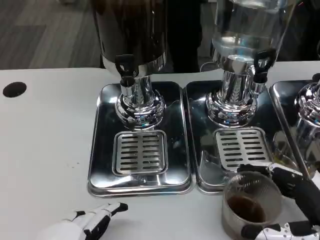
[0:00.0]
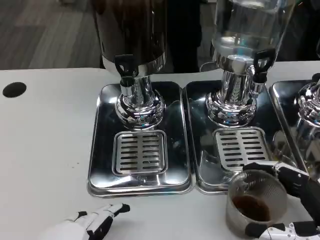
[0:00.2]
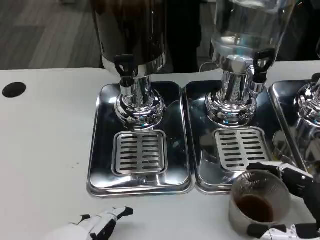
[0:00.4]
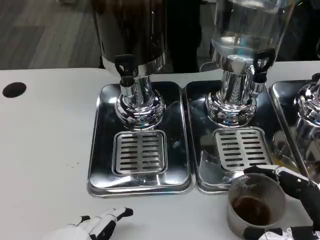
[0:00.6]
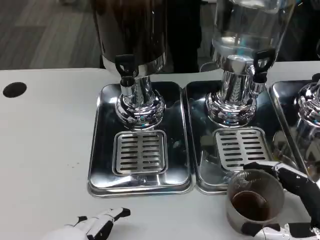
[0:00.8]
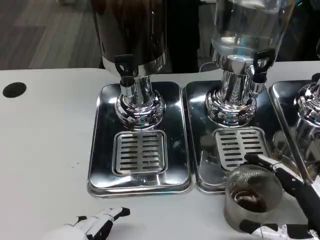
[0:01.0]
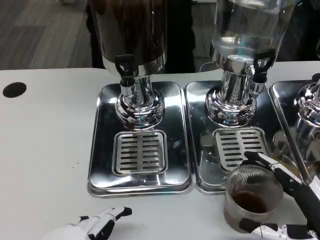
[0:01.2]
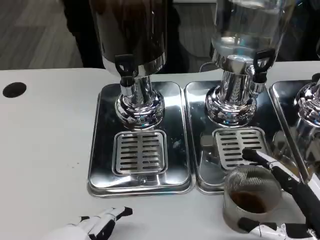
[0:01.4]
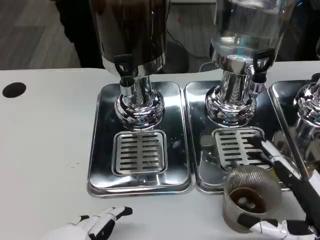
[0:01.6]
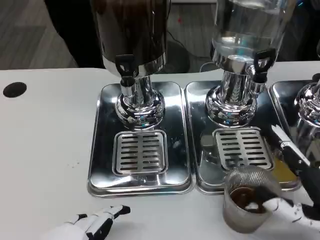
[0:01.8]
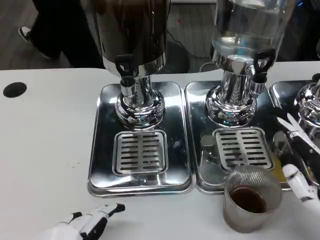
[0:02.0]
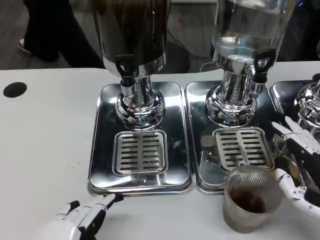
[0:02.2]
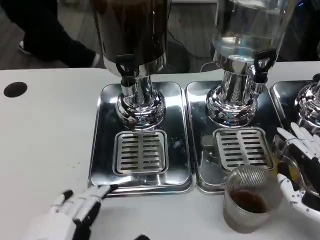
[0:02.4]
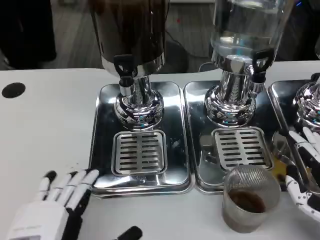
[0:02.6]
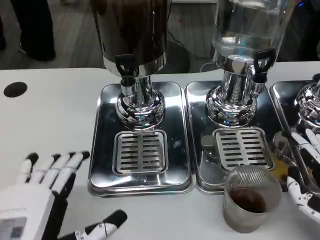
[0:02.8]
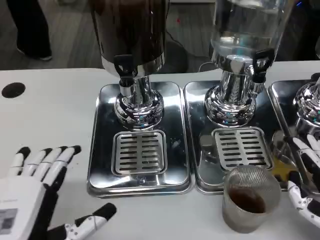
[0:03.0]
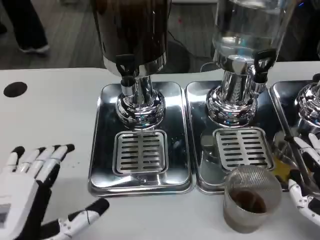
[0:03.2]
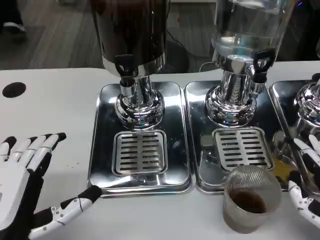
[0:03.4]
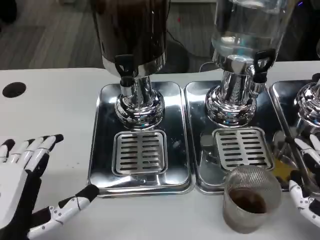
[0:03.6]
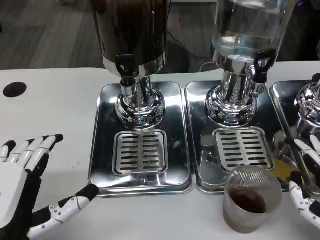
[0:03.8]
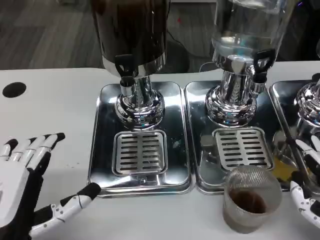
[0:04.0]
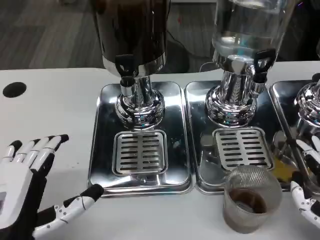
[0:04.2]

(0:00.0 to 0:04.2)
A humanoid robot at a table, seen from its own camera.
Task of the whole recording: Grasp the cup under the faucet to collect the drink, then remove the cup.
0:00.0 - 0:01.4: The hands move only a little.
0:01.4 - 0:02.8: The left hand ends up about 5 cm from where it was.
0:02.8 - 0:04.2: The hands move only a little.

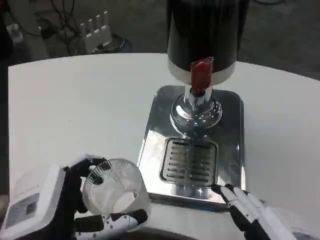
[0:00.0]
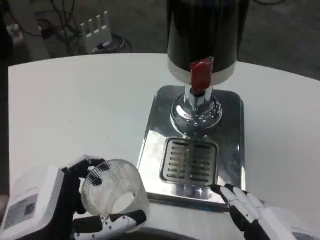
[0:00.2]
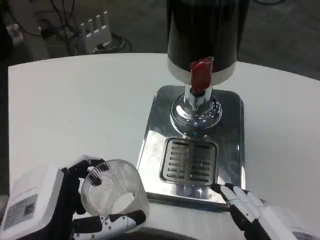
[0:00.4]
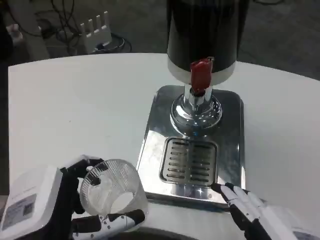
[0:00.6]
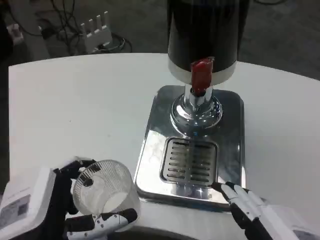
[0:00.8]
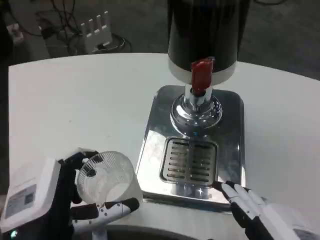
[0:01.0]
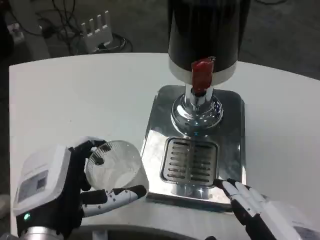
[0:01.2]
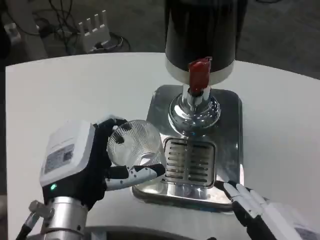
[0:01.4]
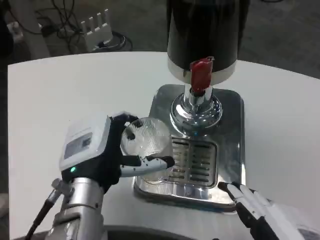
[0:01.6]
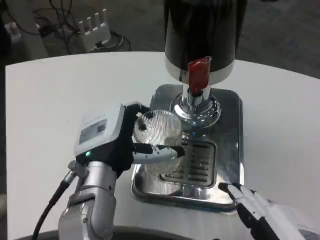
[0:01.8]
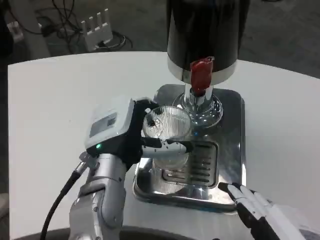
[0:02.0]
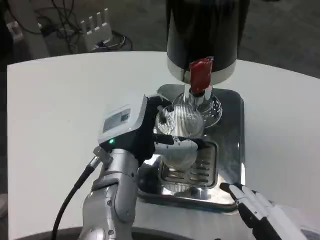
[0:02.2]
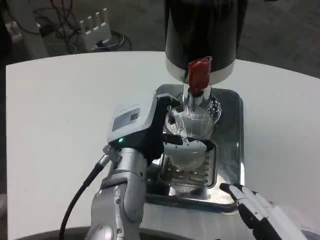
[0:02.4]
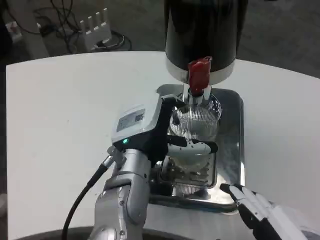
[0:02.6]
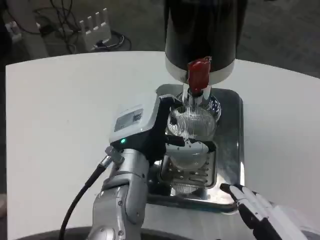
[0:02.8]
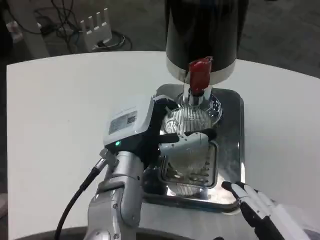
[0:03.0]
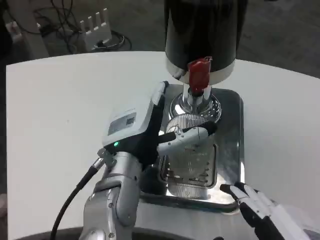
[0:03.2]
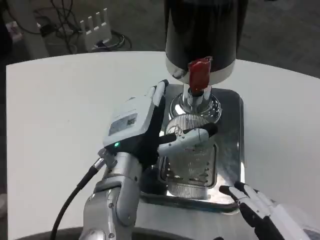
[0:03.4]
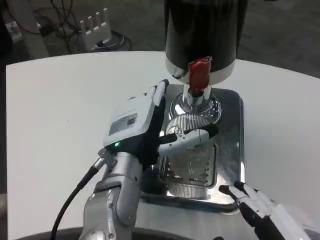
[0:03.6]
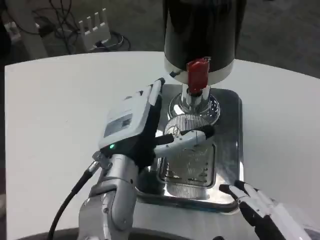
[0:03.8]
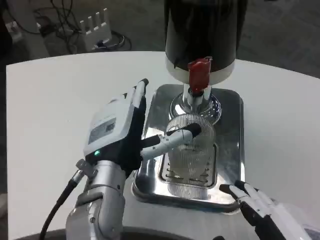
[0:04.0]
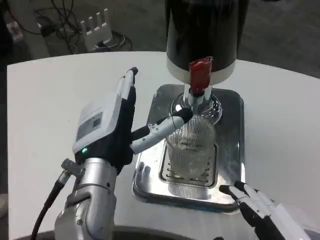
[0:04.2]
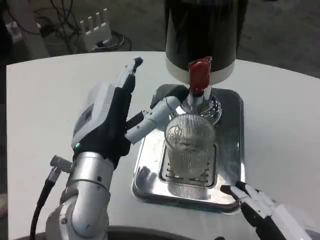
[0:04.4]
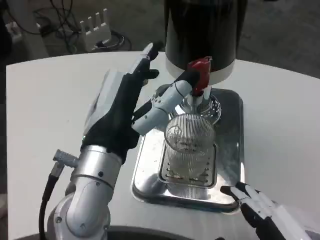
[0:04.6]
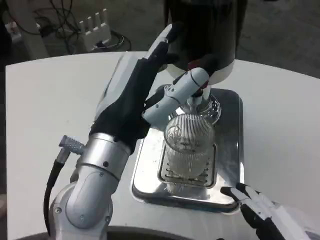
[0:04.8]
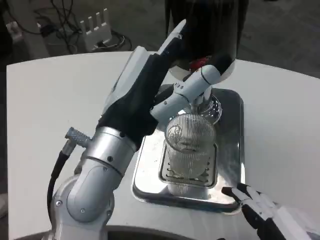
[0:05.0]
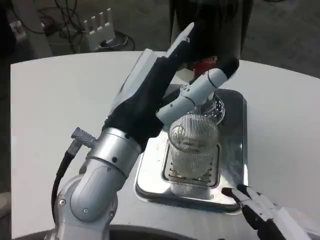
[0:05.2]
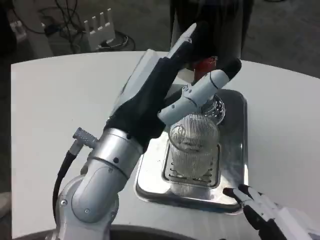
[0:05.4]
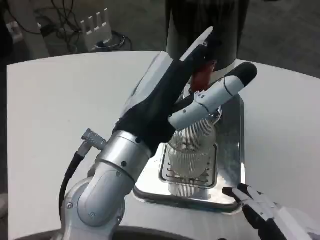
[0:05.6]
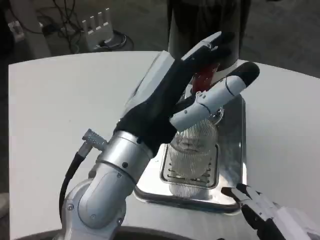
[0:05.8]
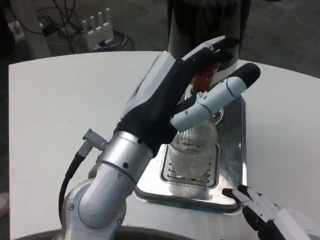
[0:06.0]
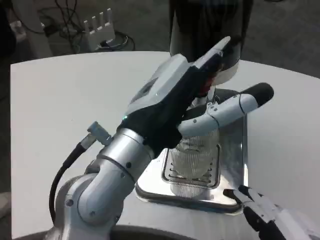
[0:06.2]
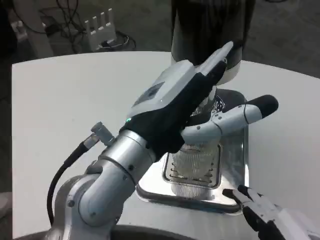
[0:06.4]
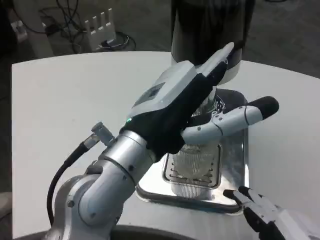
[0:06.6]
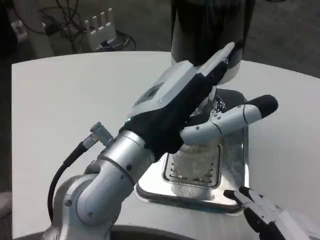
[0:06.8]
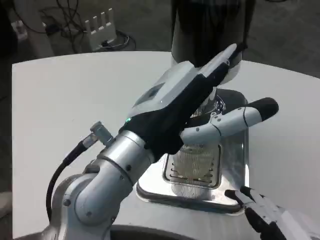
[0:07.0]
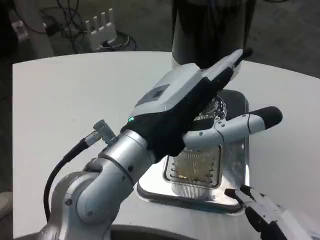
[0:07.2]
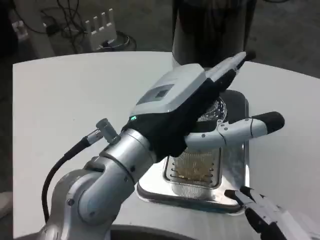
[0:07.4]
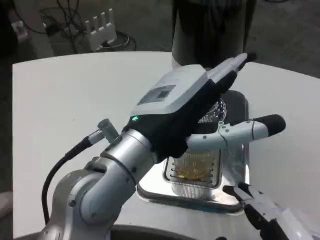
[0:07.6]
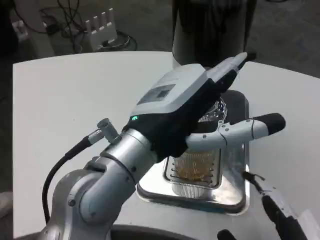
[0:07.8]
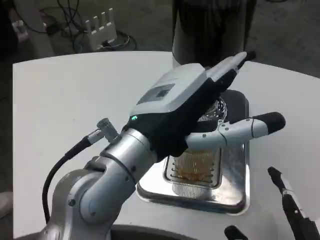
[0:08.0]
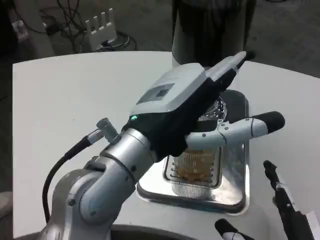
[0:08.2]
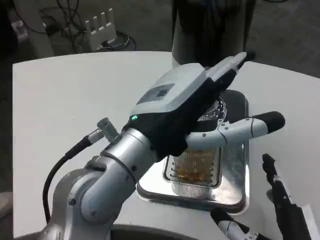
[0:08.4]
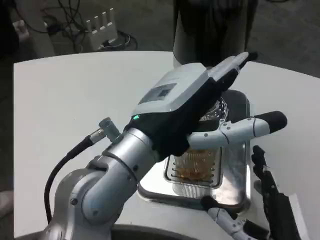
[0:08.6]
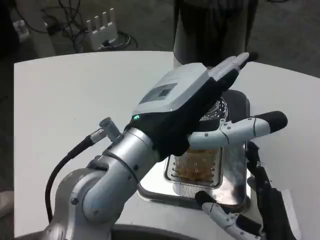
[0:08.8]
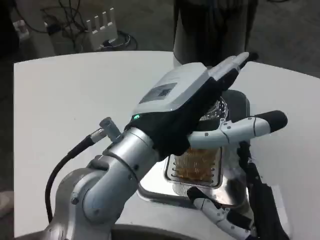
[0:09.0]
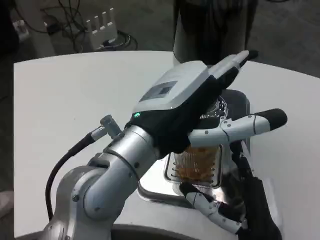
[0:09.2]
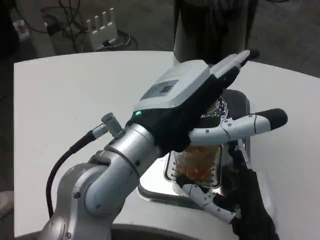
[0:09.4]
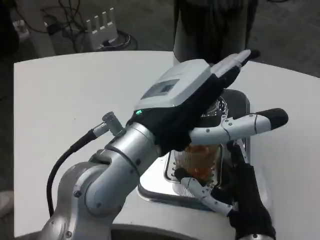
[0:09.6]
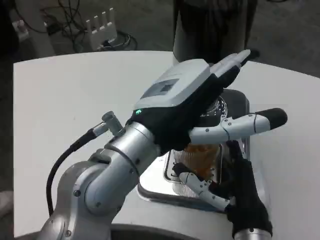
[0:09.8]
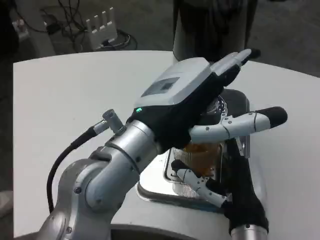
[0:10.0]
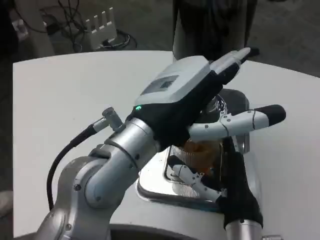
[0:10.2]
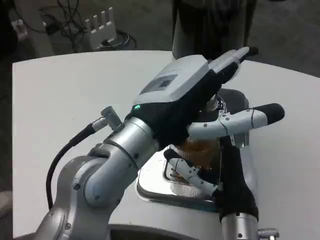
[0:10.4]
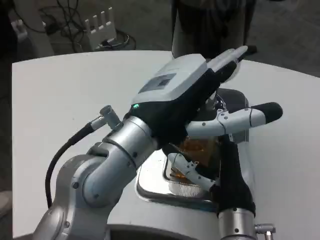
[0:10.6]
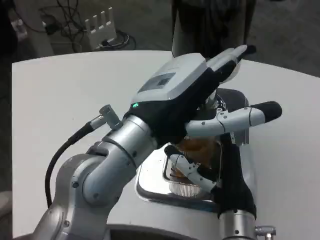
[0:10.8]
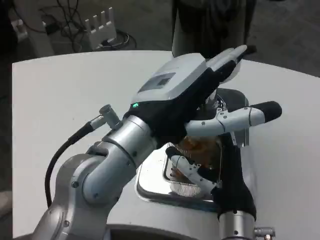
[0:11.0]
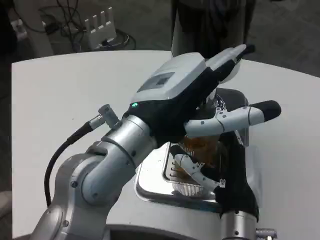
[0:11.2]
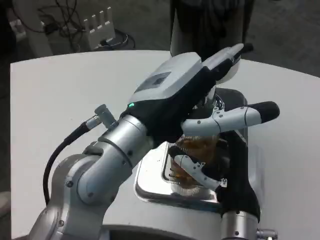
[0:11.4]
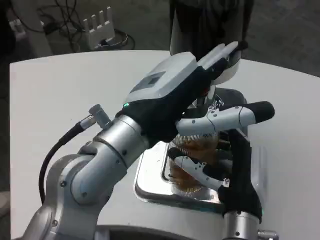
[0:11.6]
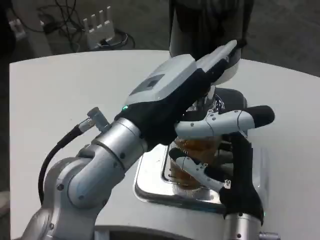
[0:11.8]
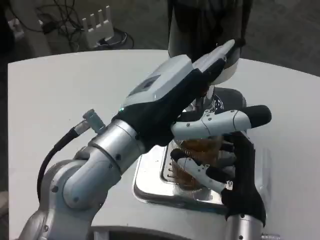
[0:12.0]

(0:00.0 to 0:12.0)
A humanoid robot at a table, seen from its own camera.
Task of the whole recording: Grasp the cup under the faucet to collect the drink, then remove the cup.
0:00.0 - 0:01.6: The left hand travels forward by about 10 cm.
0:01.6 - 0:03.0: The left hand ends up roughly 5 cm from where it was.
0:03.0 - 0:04.4: The left hand shifts by roughly 5 cm.
0:07.6 - 0:09.0: The right hand moves forward, downward and to the left, about 10 cm.
0:09.0 - 0:10.4: The right hand goes about 5 cm forward.

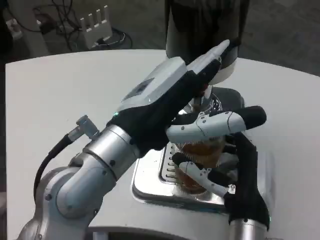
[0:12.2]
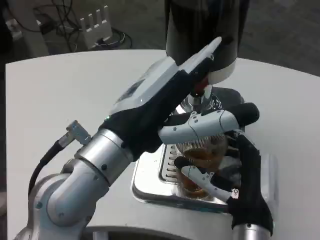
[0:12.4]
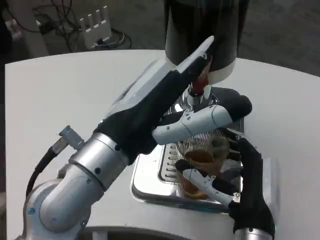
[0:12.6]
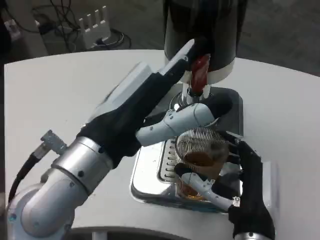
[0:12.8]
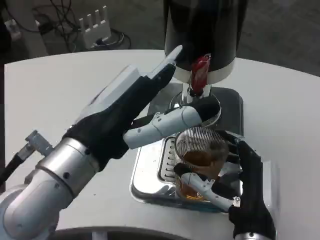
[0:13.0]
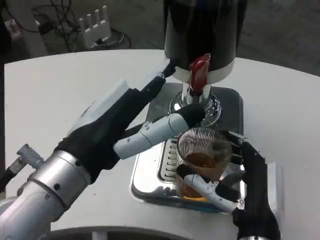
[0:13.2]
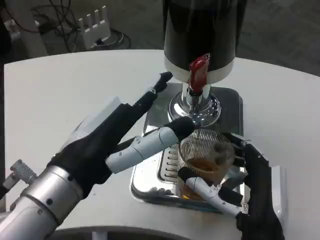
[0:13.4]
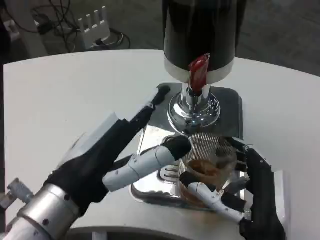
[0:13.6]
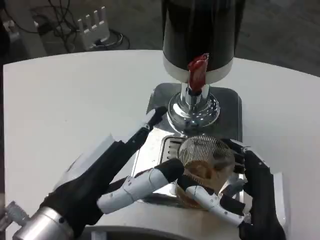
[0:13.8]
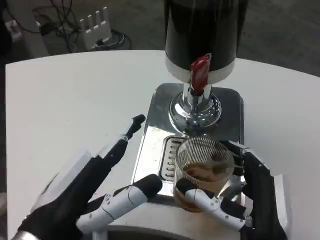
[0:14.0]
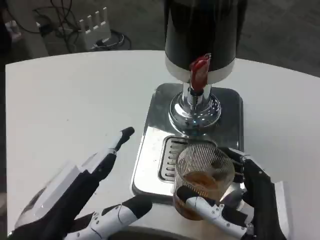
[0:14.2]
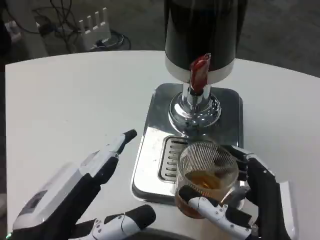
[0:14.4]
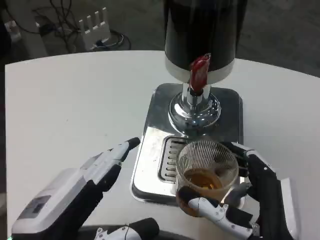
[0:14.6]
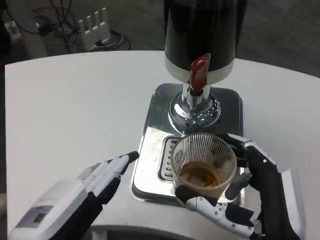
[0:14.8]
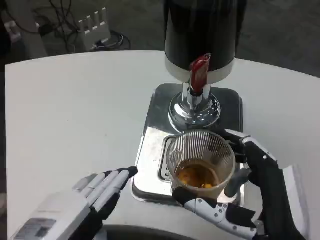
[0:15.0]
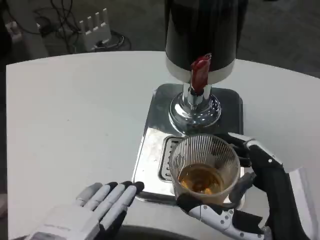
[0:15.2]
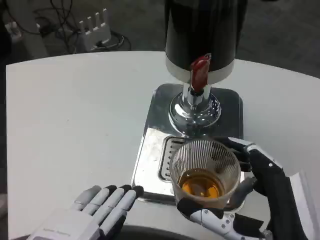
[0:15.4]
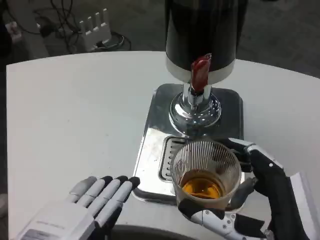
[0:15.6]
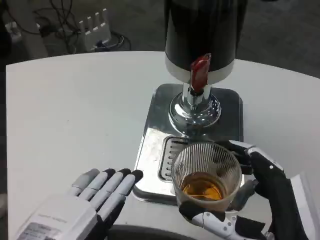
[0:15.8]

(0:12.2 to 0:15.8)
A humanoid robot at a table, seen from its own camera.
Task of the whole recording: Grasp the cup under the faucet to collect the drink, then remove the cup.
0:12.2 - 0:14.0: The left hand heads downward, to the left and backward, covering about 15 cm. The right hand moves backward, some 5 cm.
0:14.0 - 0:15.8: The right hand ends up roughly 5 cm from where it was. The left hand moves about 5 cm.

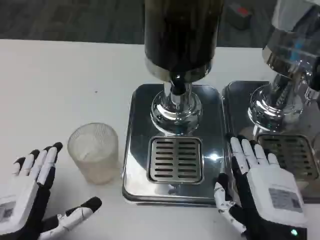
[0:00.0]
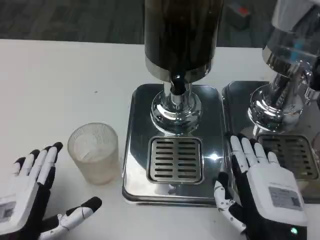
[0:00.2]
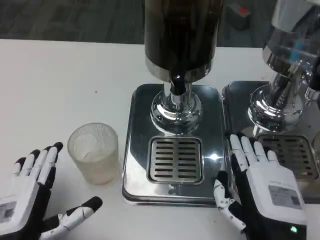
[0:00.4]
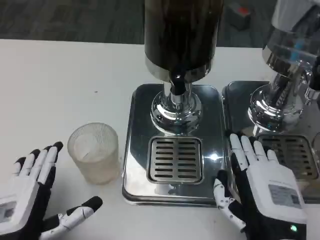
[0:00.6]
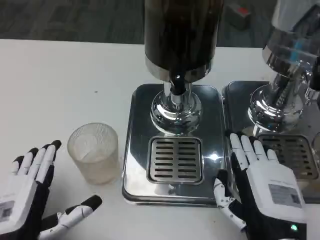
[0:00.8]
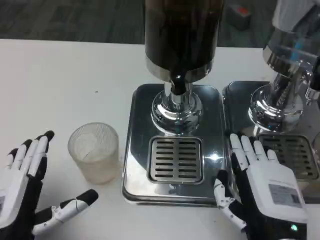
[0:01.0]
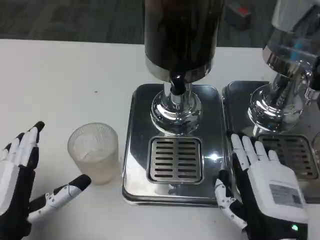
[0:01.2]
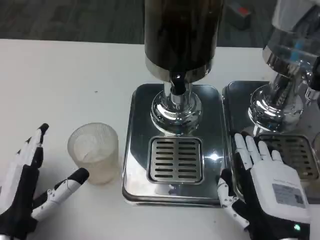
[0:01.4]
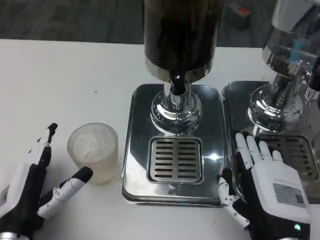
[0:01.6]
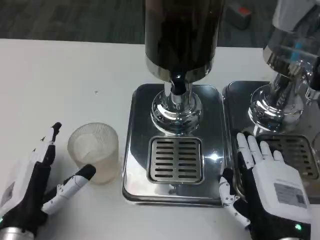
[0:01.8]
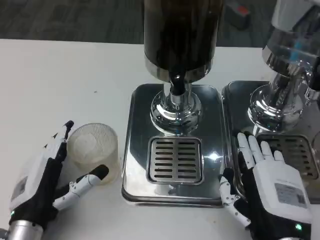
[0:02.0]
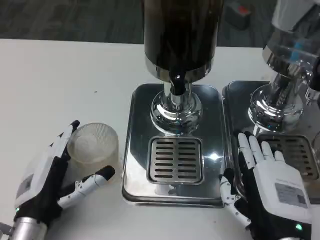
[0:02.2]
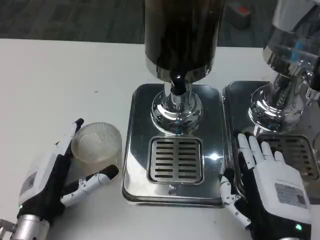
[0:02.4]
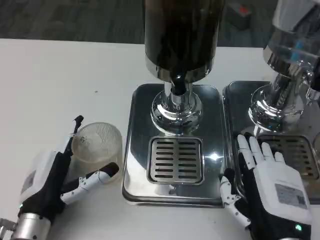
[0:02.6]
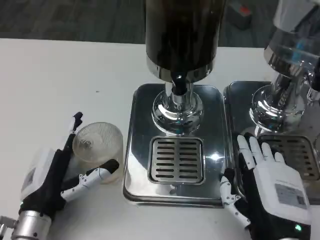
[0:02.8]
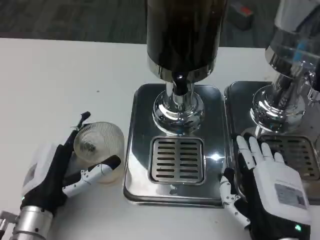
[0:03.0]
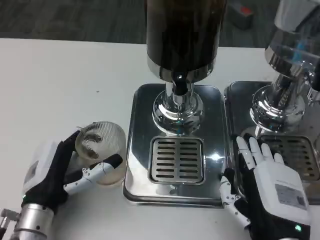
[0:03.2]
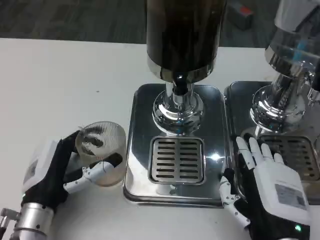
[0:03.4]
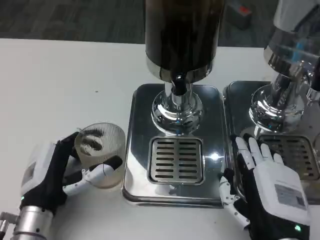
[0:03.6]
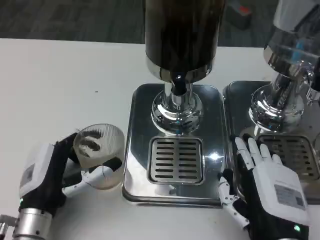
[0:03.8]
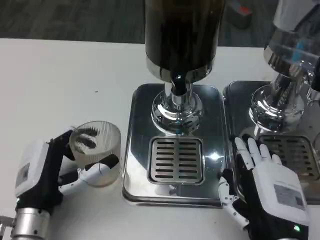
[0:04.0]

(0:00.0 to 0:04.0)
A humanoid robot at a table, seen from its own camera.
Task of the whole recording: Grasp the cup under the faucet to collect the drink, then remove the cup.
0:01.4 - 0:04.0: The hands make only small movements.
